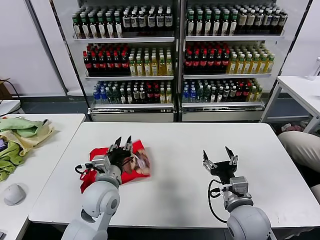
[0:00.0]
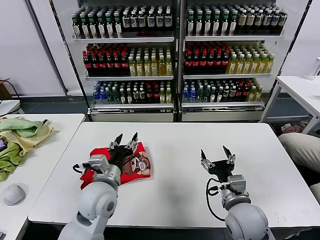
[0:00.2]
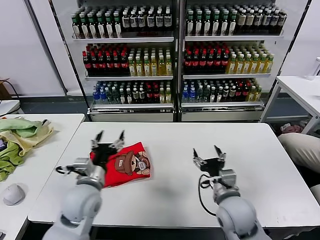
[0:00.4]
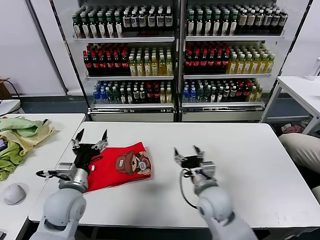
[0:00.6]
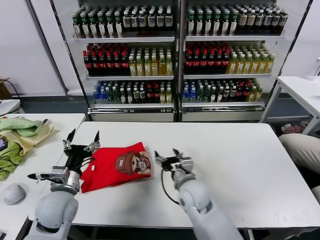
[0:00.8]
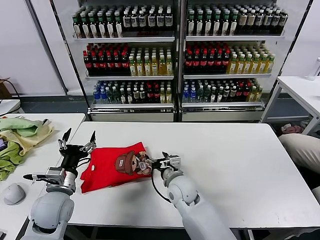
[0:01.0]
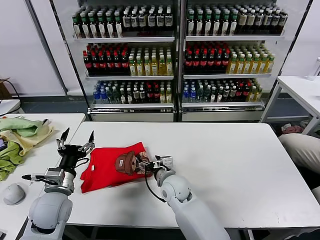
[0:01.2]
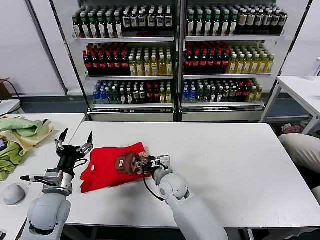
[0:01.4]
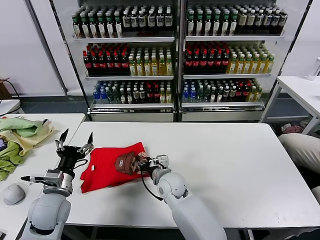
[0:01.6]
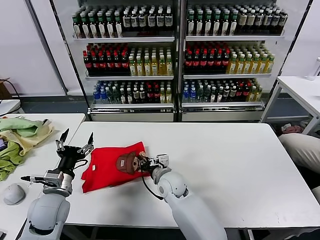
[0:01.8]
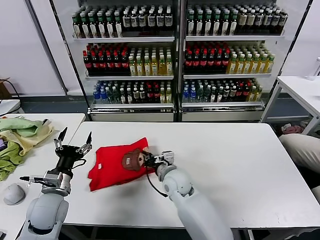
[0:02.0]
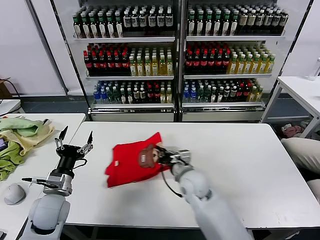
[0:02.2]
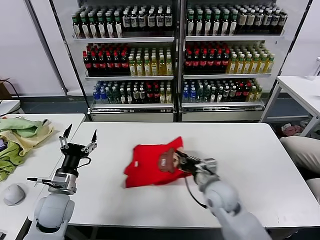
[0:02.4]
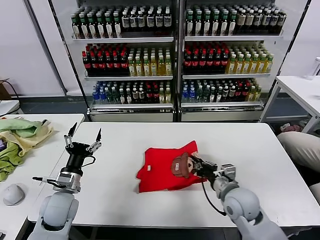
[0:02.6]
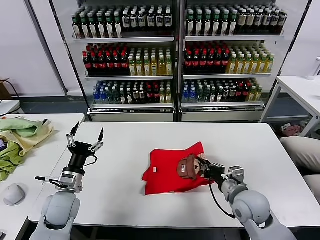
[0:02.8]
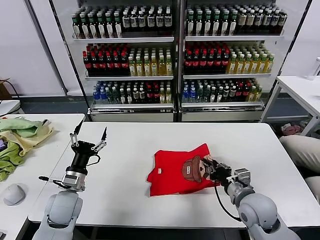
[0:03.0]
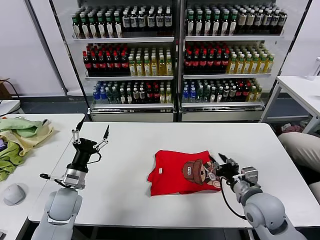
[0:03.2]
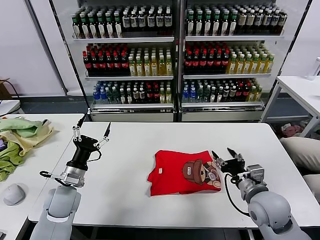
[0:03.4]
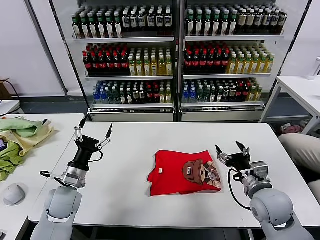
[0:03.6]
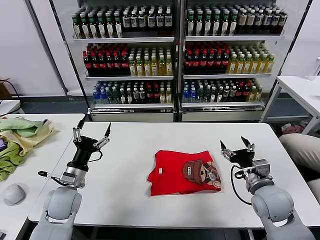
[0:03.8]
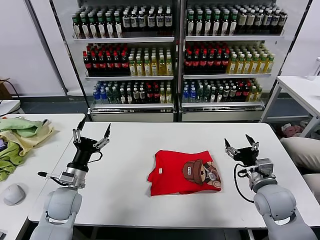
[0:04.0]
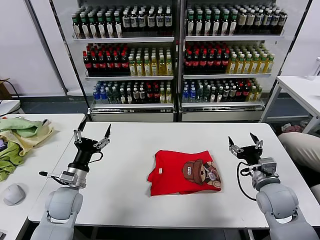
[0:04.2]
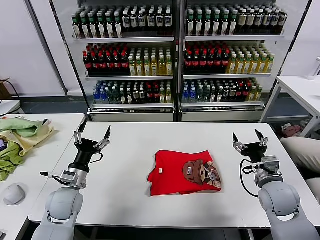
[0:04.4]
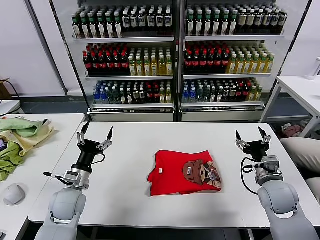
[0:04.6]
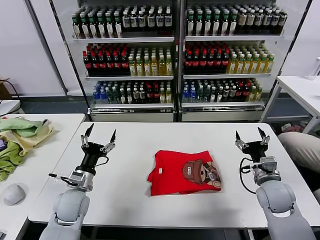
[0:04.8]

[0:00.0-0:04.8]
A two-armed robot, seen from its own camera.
Task of the whole recording: fold and organize the clothes.
Step, 0:00.2 to 0:03.2: Drag the clothes to the center of the table.
0:00.0 to 0:01.6: The right gripper heads to the left and forward, covering approximately 25 cm, and closes its fingers; the left gripper shifts approximately 15 cm to the left, and opens up.
0:01.6 to 0:03.2: The right gripper moves to the right and backward, about 25 cm, and closes, then reopens.
0:03.2 to 0:04.8: The right gripper goes roughly 5 cm to the right, and opens its fingers.

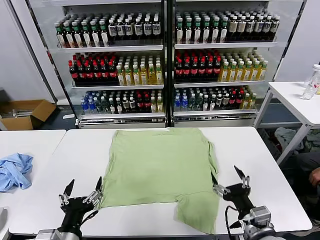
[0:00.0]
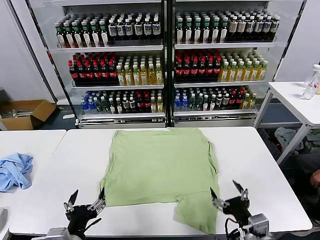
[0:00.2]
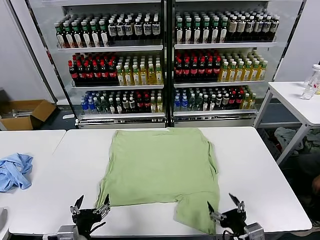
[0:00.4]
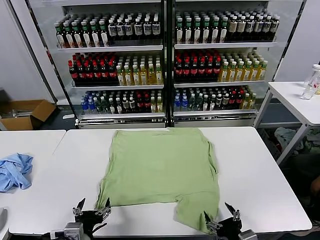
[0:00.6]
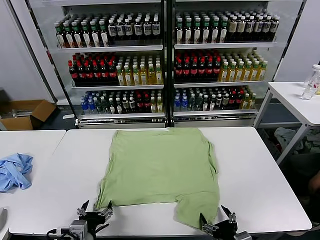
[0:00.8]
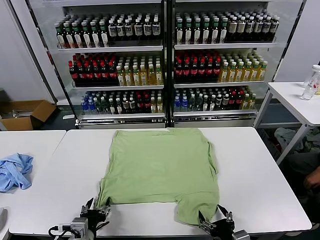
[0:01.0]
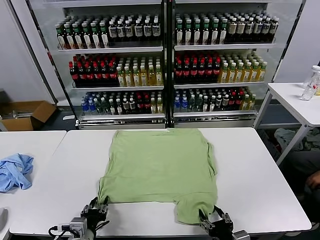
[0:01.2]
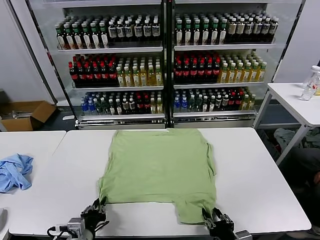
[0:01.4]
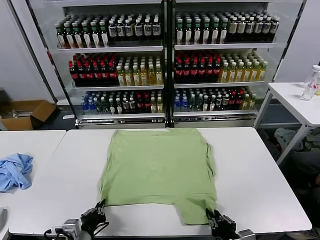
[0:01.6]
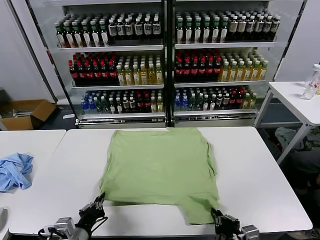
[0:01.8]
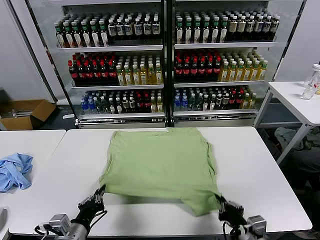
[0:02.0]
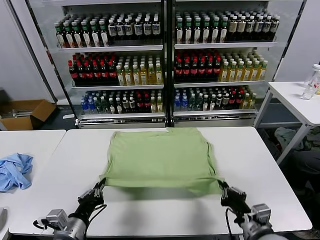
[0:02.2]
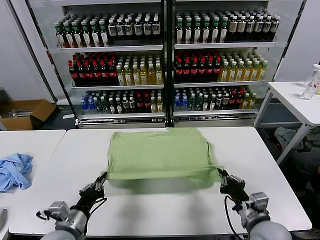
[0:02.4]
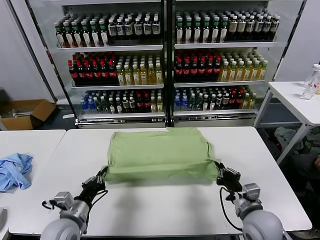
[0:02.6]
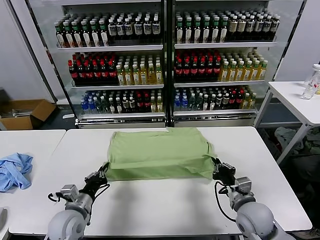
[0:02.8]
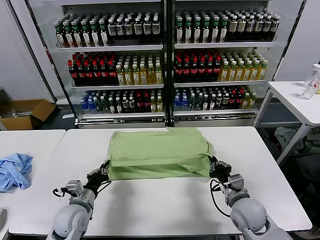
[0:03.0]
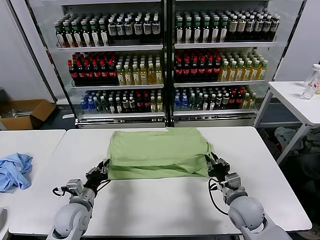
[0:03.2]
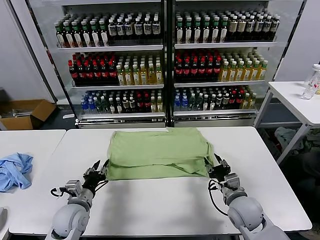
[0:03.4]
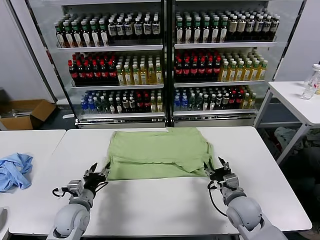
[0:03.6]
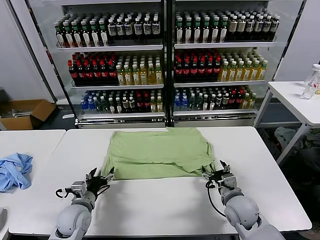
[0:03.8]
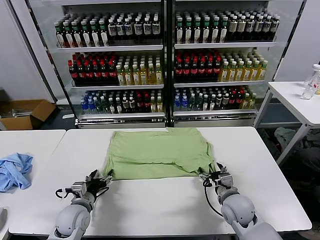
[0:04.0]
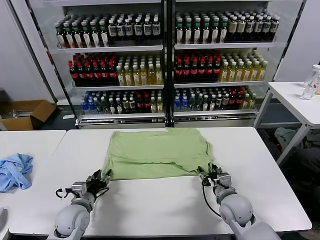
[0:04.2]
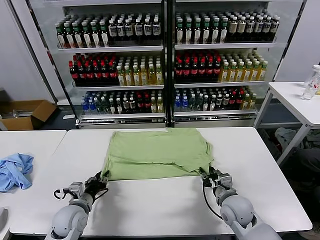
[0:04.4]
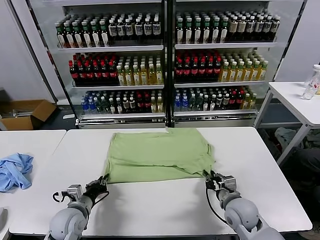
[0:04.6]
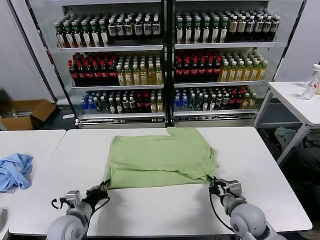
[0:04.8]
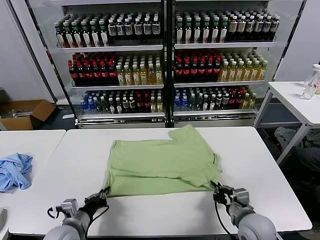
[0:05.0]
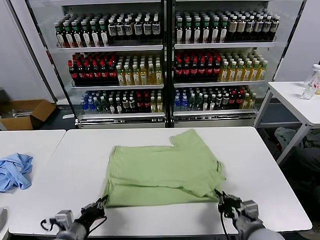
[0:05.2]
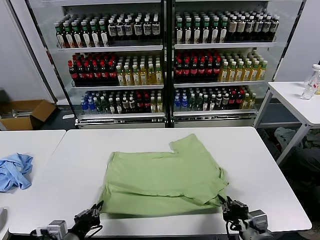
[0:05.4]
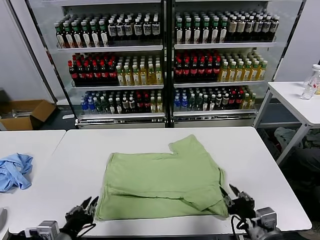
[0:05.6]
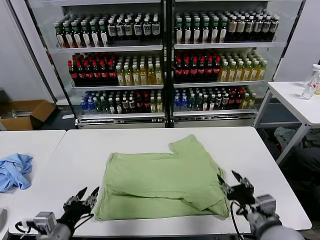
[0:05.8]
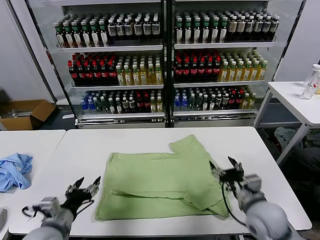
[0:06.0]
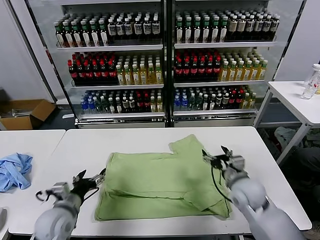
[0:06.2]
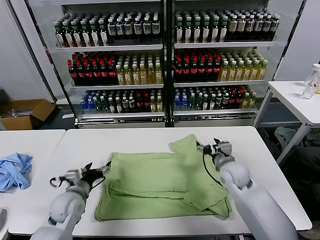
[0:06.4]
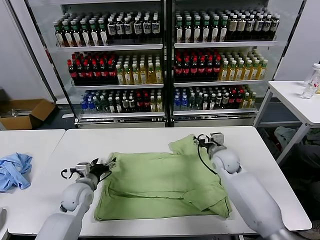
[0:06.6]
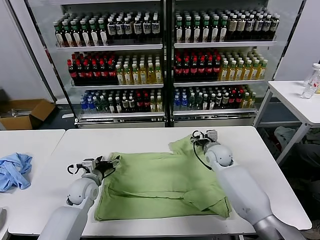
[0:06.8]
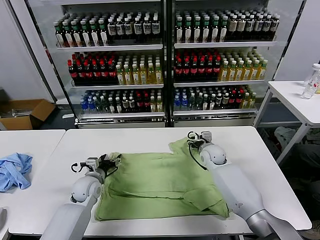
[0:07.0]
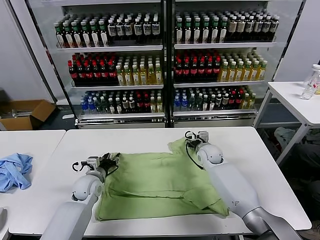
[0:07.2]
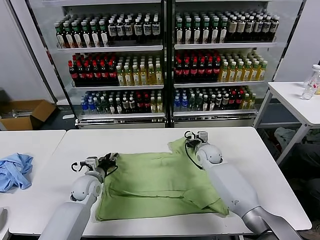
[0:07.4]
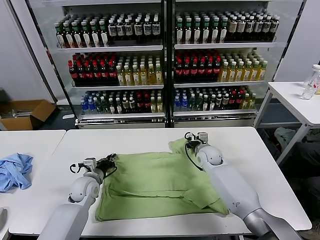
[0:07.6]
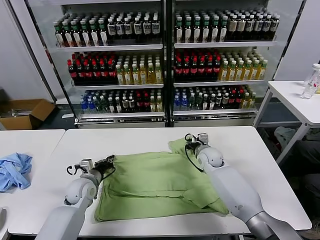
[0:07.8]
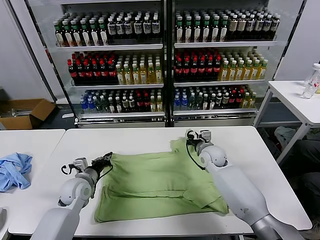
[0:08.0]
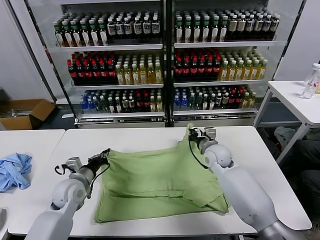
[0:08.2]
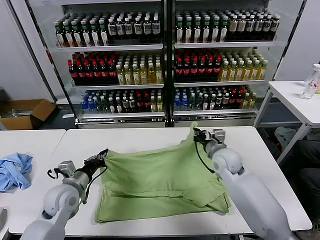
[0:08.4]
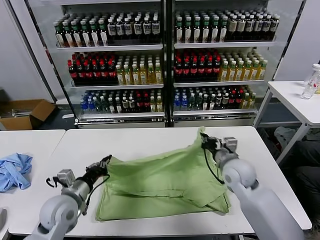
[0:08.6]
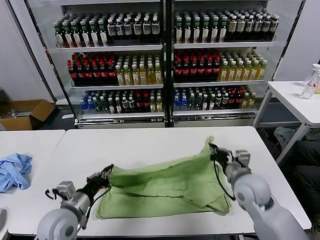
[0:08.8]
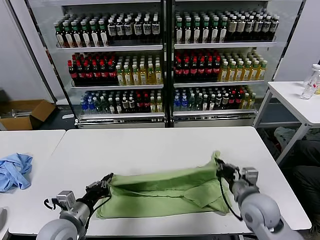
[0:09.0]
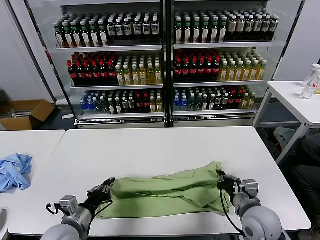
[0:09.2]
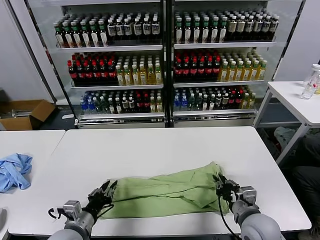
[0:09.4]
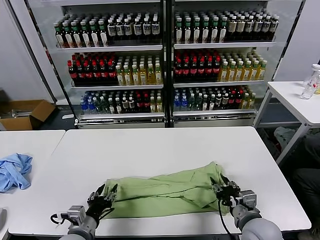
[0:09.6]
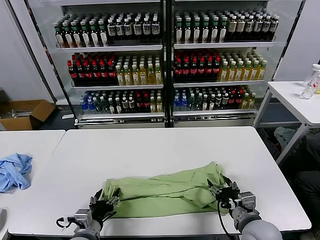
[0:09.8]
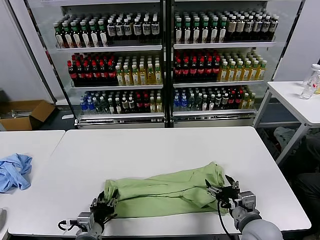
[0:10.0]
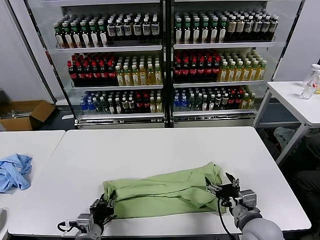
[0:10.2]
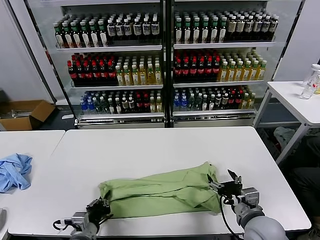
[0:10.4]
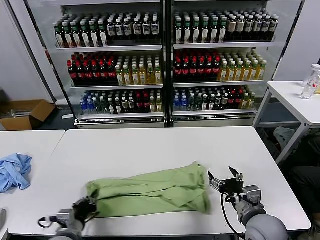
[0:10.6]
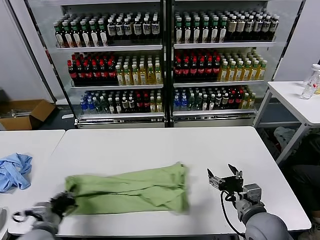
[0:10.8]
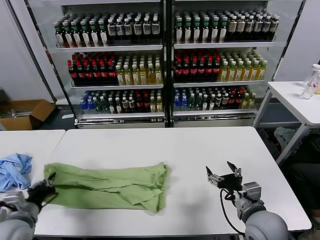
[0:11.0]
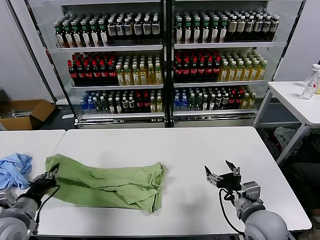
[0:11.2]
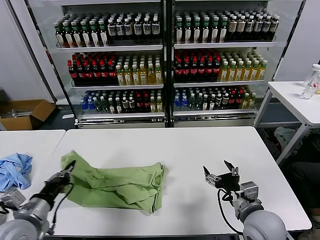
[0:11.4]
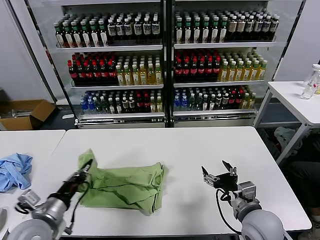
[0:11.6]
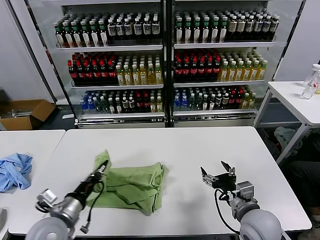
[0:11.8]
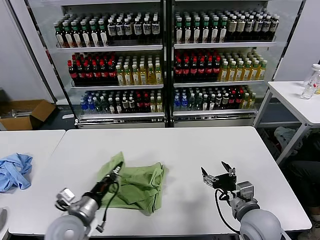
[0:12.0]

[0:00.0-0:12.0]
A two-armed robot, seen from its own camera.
Task of the whole recording: fold and organize the clothes.
Step, 0:00.0 to 0:01.6: use both grippers simultaneously to clamp the lower edge of the clothing fabric.
Step, 0:01.8 to 0:03.4: use both grippers to drag the lower edge of the fabric forward and fold it over the upper edge.
Step, 0:03.6 to 0:05.4: Drag the clothes downward with both gripper.
Step, 0:05.8 to 0:07.6: use both grippers simultaneously to clamp the upper edge of the clothing fabric.
Step, 0:07.8 to 0:09.6: use both grippers to drag the upper edge of the fabric backward and fold it over the lower edge.
Step, 0:09.8 to 0:10.4: use the left gripper to clamp the left edge of the fabric.
0:01.6 to 0:03.0: Both grippers travel together forward, approximately 15 cm.
0:03.0 to 0:04.4: The left gripper opens. The right gripper opens and closes again.
0:04.4 to 0:06.0: The right gripper is displaced upward by some 10 cm, travels backward and back again, approximately 15 cm each way, and opens its fingers; the left gripper shifts roughly 15 cm backward and upward, and closes and opens again.
0:06.0 to 0:07.6: The right gripper goes about 20 cm forward, and closes. Meanwhile the left gripper shifts about 20 cm forward and downward, and closes.
0:07.6 to 0:09.0: The left gripper moves backward and upward, approximately 20 cm. Meanwhile the right gripper shifts roughly 25 cm backward.
0:09.0 to 0:10.4: The left gripper heads downward, covering some 5 cm, and opens, then closes once more. The right gripper opens its fingers.
0:10.4 to 0:12.0: The left gripper travels upward by approximately 10 cm, and moves roughly 15 cm to the left and comes back.

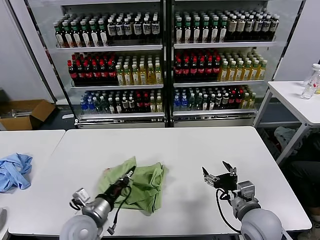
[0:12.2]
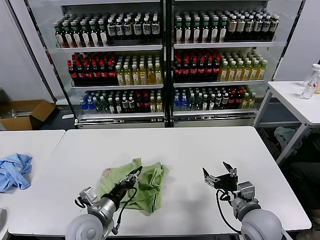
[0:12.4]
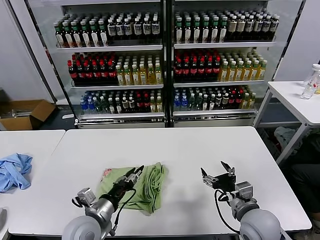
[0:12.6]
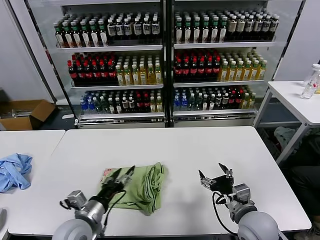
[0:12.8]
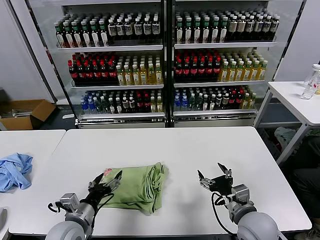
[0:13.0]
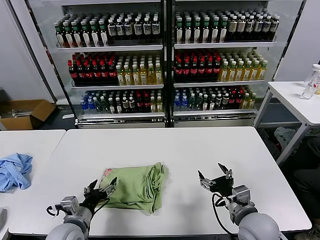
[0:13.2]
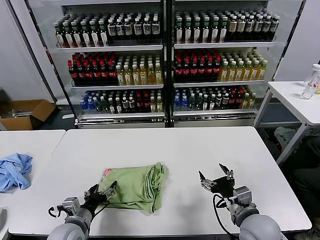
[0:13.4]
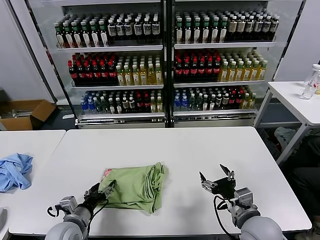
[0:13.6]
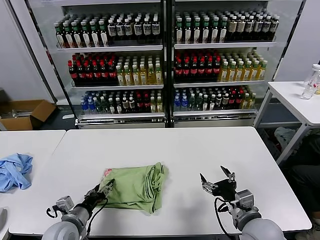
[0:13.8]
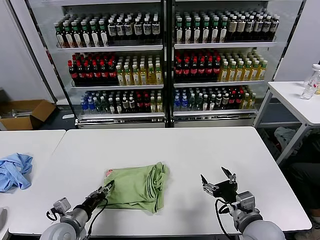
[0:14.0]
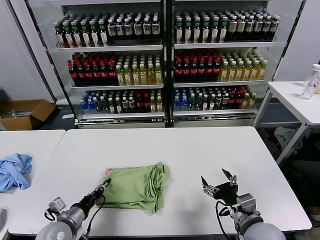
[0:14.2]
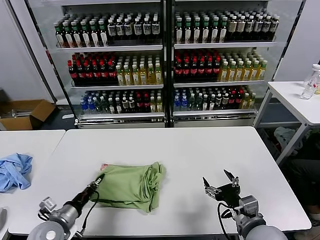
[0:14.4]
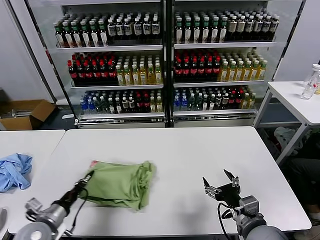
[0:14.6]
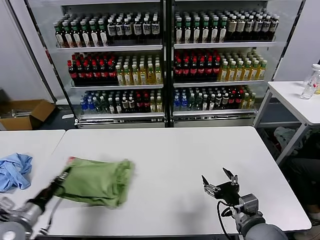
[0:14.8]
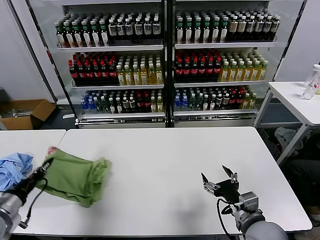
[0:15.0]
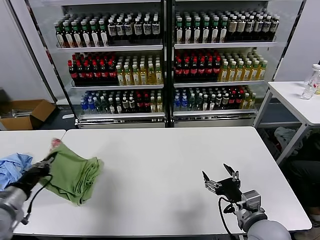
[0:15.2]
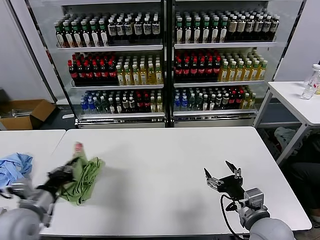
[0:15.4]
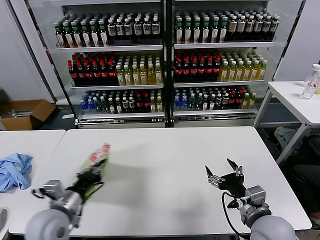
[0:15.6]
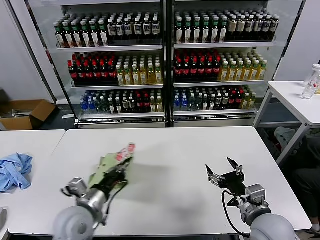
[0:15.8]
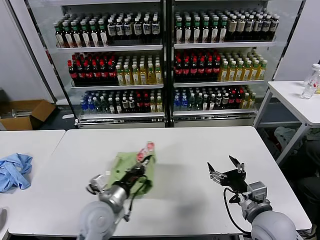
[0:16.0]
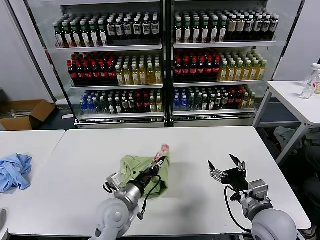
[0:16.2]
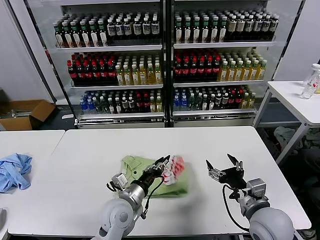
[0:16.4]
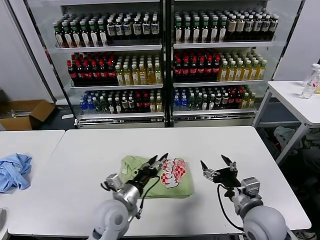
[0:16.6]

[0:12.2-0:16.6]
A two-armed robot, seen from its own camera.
Task of the whole recording: fold and organize the clothes.
Step, 0:12.8 to 0:16.4: Flip the folded clothes over with left gripper.
0:12.2 to 0:13.6: The left gripper travels to the left by about 5 cm, and opens its fingers.
0:13.6 to 0:15.2: The left gripper goes some 20 cm to the left and upward, and closes.
0:15.2 to 0:16.6: The left gripper moves to the right, some 30 cm, and opens its fingers.
